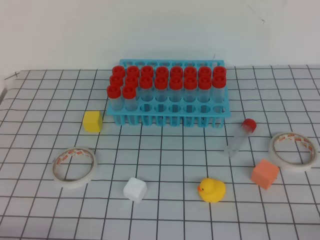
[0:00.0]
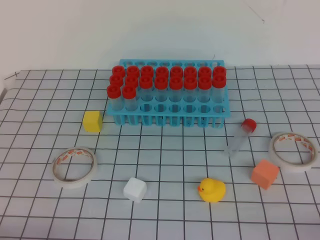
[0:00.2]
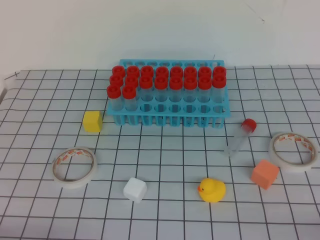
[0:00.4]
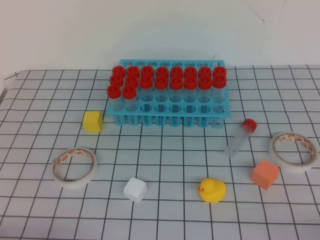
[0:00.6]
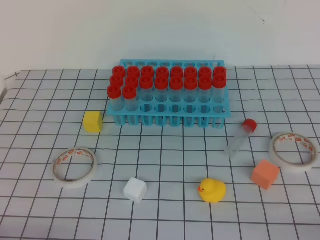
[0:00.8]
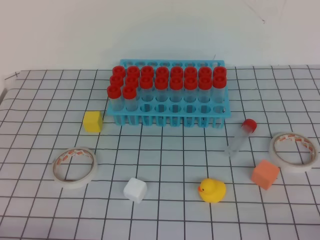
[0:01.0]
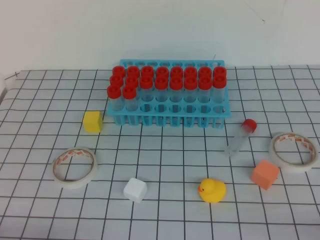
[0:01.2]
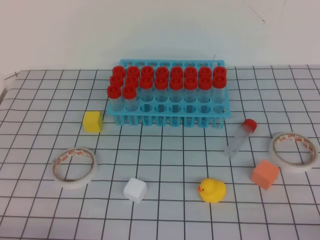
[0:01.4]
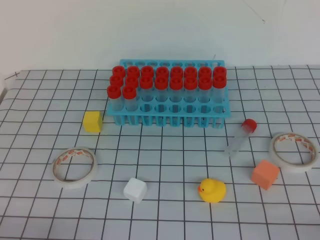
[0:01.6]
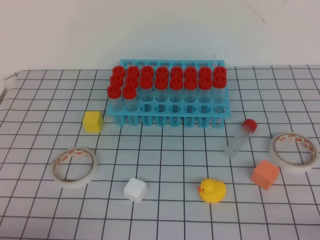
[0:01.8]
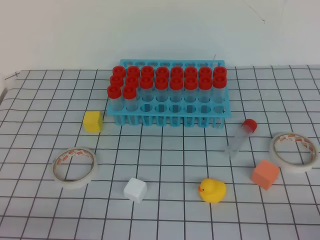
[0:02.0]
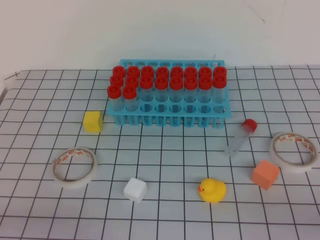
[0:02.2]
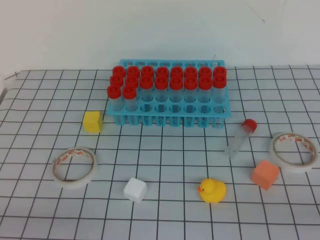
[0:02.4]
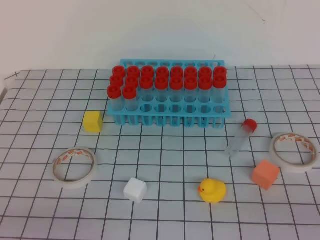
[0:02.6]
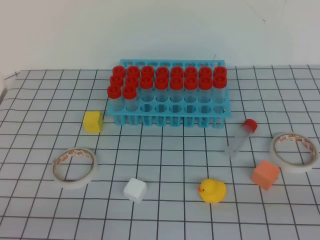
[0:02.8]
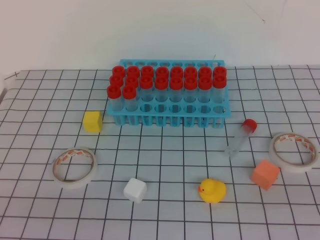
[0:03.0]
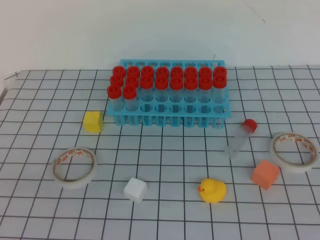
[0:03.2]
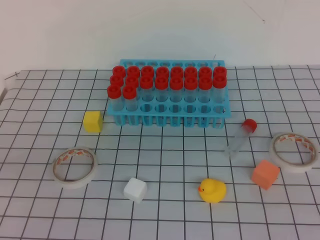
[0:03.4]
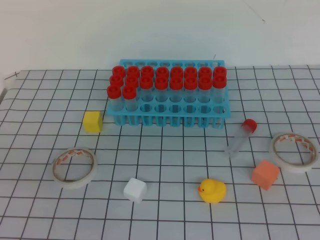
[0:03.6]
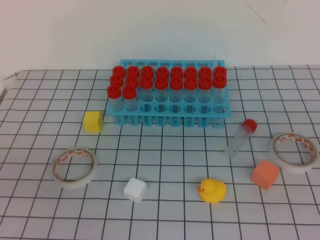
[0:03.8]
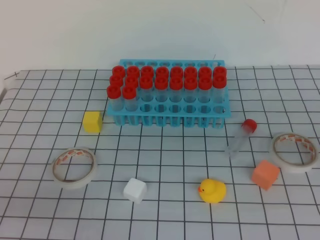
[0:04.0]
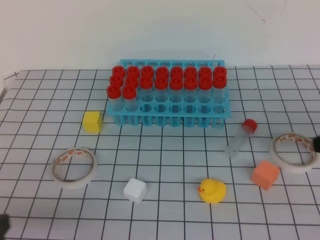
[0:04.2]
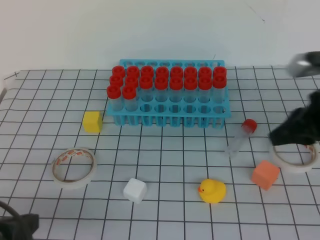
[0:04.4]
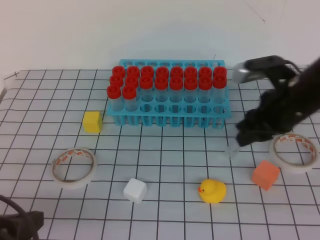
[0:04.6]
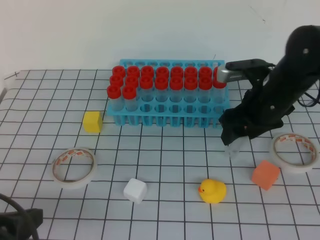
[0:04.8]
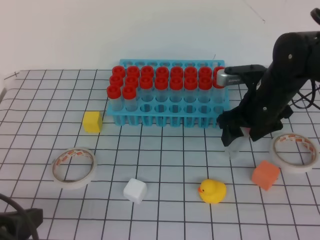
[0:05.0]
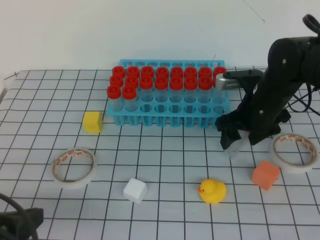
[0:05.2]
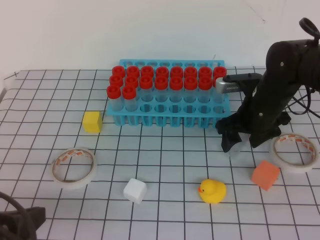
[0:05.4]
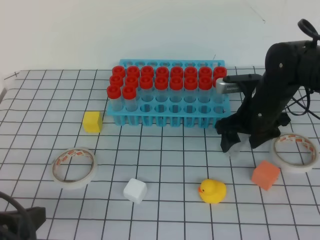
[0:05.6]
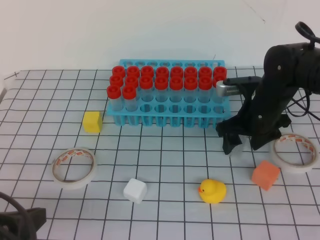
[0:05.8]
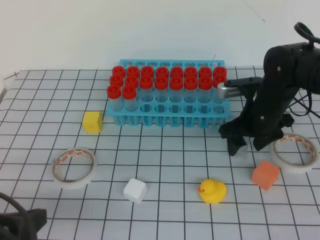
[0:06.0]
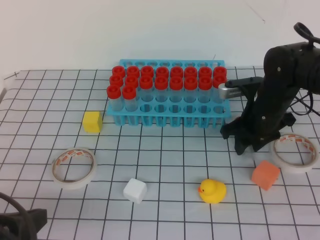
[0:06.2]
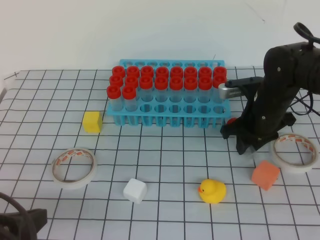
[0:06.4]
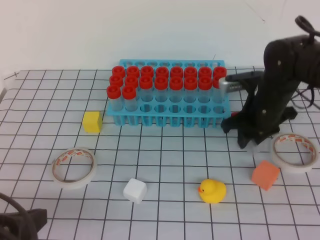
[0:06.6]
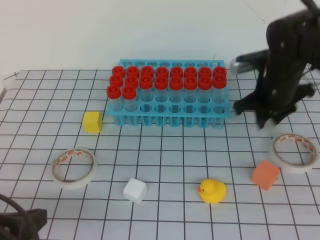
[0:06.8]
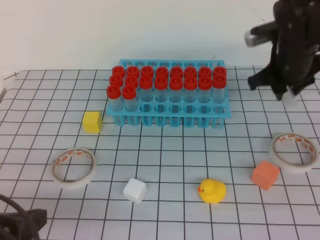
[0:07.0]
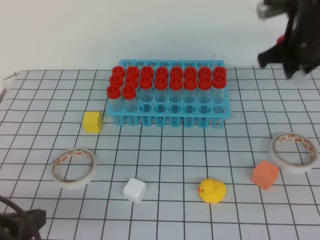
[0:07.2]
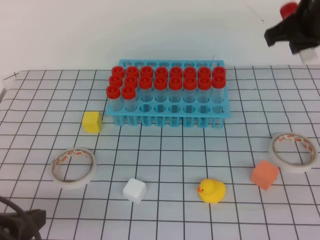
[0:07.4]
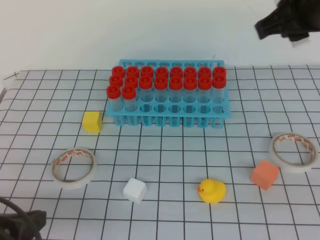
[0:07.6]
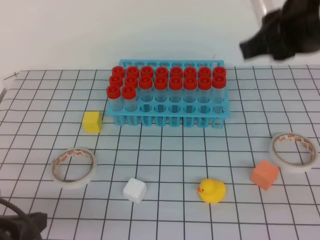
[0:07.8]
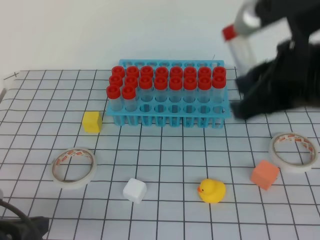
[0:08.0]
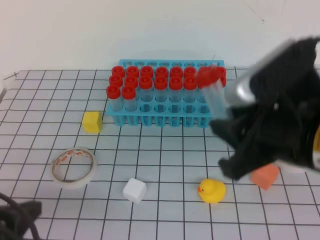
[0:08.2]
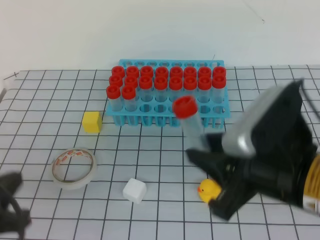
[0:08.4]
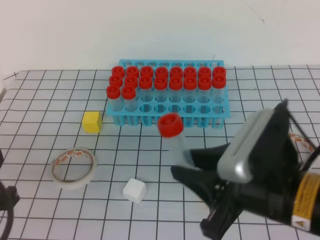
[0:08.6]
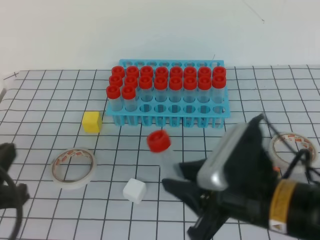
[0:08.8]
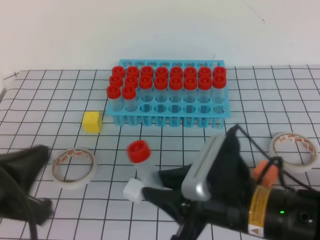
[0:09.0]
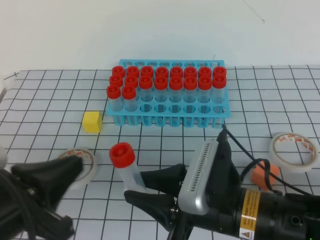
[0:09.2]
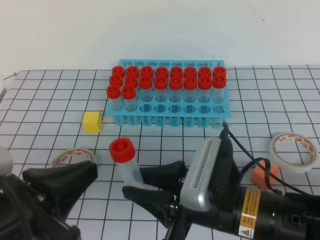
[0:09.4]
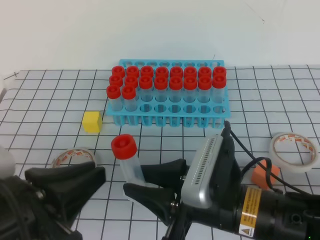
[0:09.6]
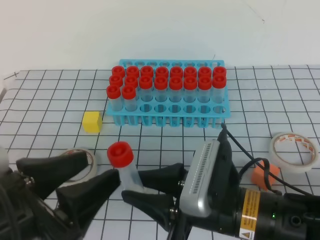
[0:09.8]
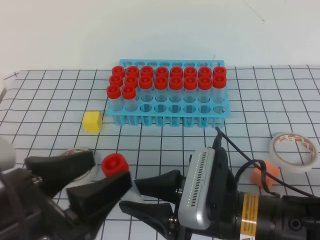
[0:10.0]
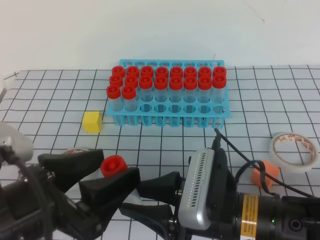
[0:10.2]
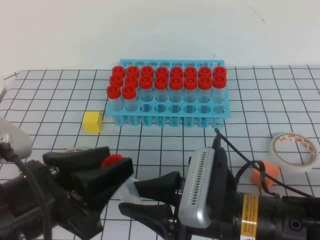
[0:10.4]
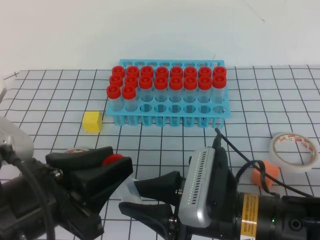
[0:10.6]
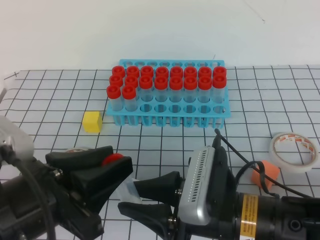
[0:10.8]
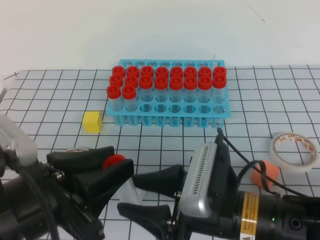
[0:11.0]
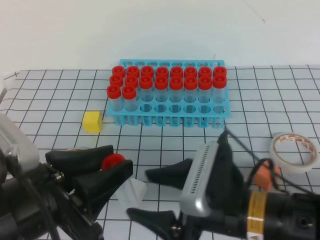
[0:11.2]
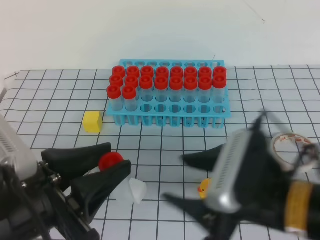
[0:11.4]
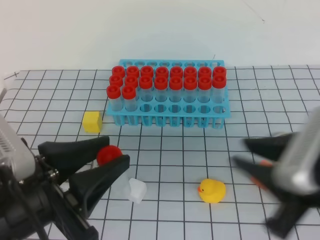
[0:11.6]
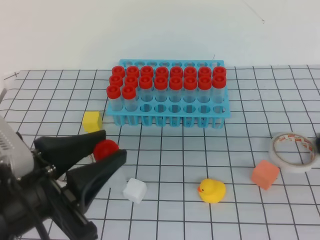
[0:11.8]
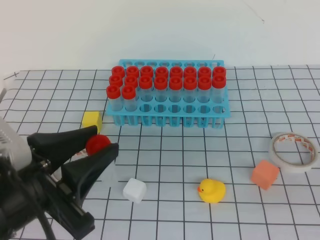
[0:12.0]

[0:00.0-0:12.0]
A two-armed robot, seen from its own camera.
0:03.0 to 0:04.4: The right gripper moves forward, some 25 cm, while the left gripper is displaced forward by some 10 cm, and reaches roughly 5 cm upward, then returns.
0:04.4 to 0:06.0: The right gripper travels forward, downward and to the left by approximately 15 cm, and opens its fingers.
0:06.0 to 0:07.6: The right gripper heads upward, covering about 20 cm, and closes its fingers.
0:07.6 to 0:09.0: The right gripper is displaced downward, backward and to the left by approximately 25 cm.
0:09.0 to 0:10.4: The left gripper goes approximately 5 cm to the right, and opens its fingers.
0:10.4 to 0:12.0: The right gripper shifts some 20 cm to the right and upward, and closes its fingers, while the left gripper closes its fingers.

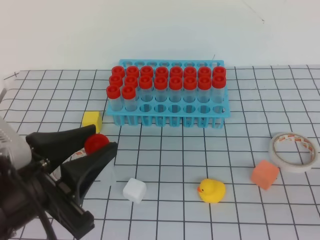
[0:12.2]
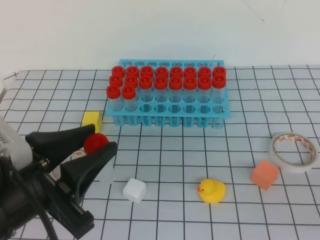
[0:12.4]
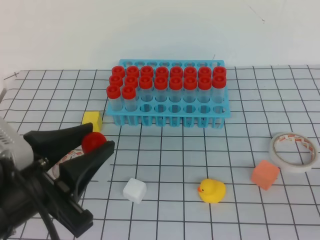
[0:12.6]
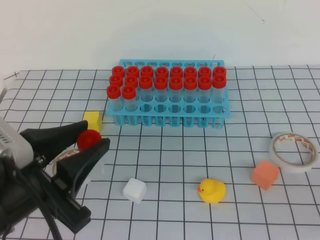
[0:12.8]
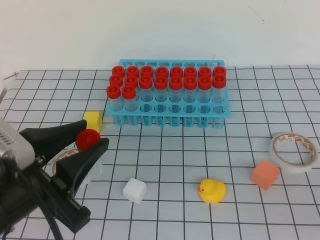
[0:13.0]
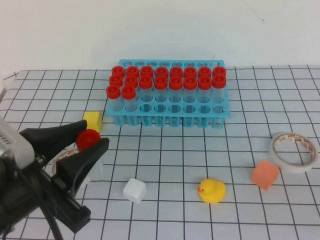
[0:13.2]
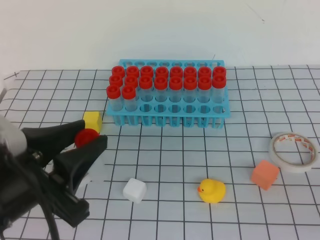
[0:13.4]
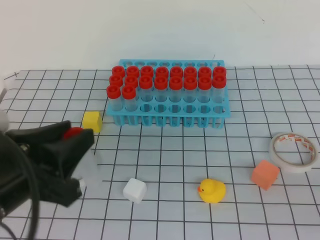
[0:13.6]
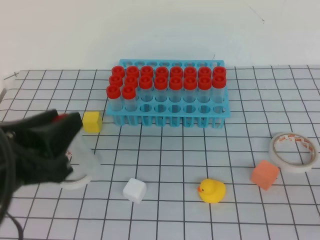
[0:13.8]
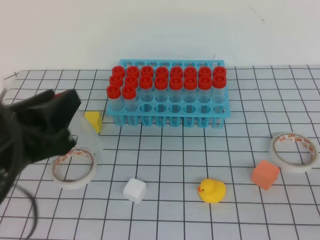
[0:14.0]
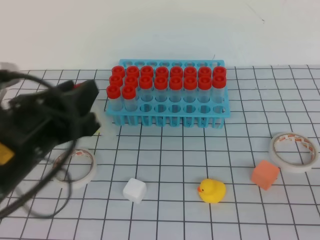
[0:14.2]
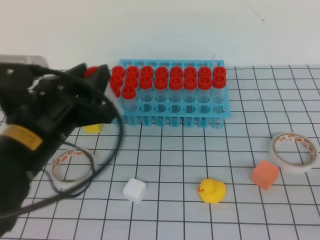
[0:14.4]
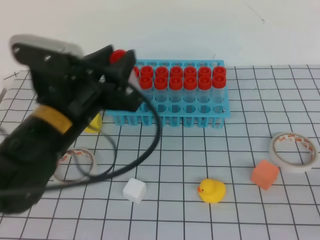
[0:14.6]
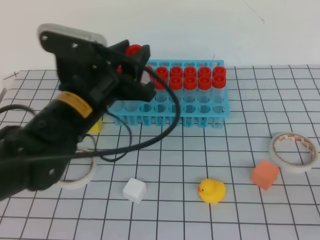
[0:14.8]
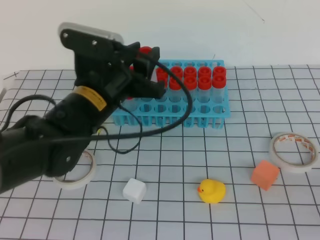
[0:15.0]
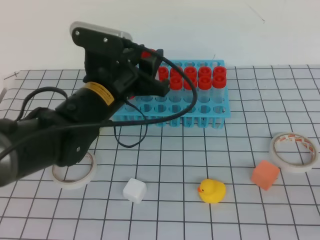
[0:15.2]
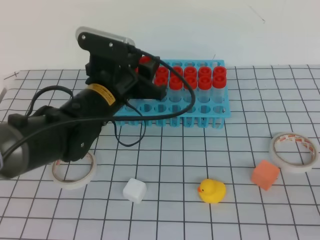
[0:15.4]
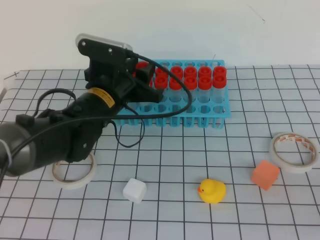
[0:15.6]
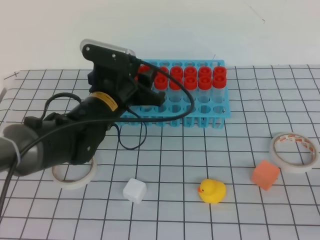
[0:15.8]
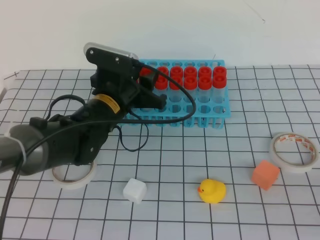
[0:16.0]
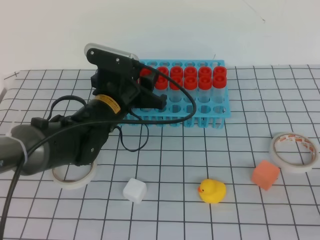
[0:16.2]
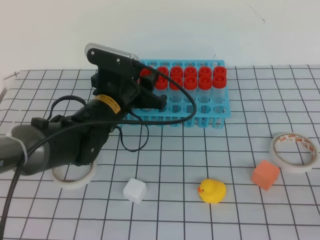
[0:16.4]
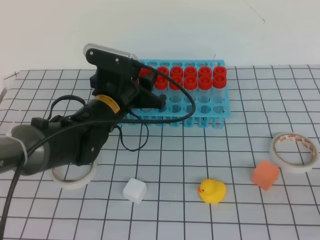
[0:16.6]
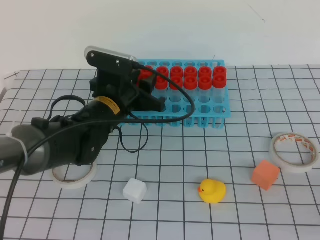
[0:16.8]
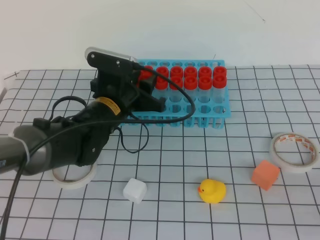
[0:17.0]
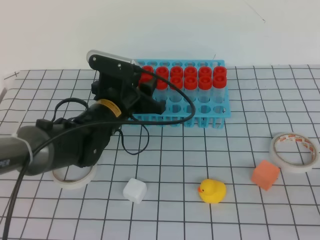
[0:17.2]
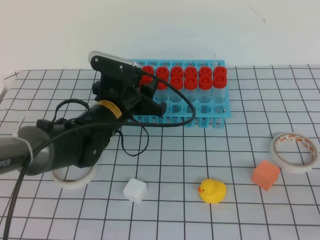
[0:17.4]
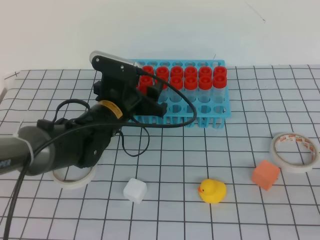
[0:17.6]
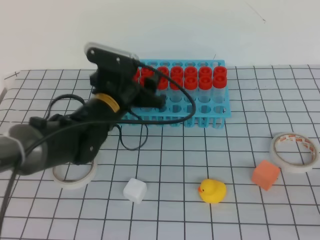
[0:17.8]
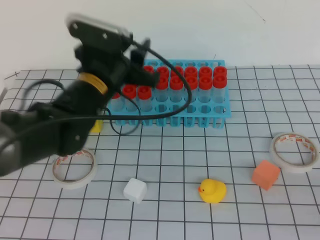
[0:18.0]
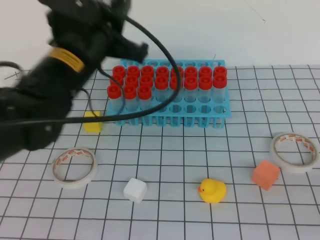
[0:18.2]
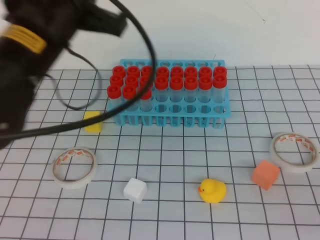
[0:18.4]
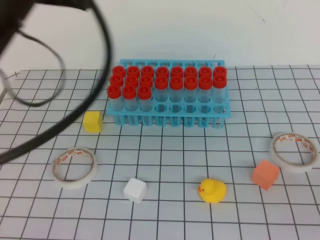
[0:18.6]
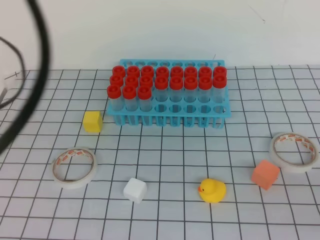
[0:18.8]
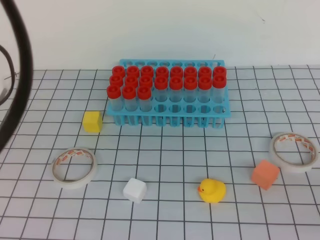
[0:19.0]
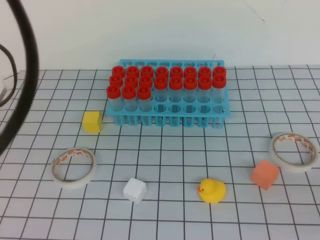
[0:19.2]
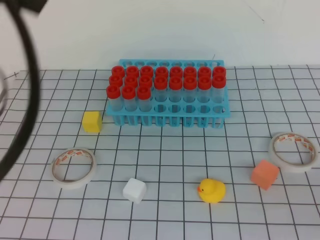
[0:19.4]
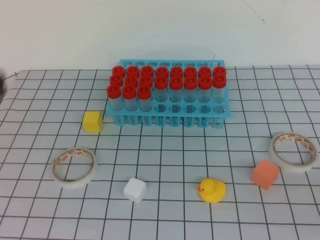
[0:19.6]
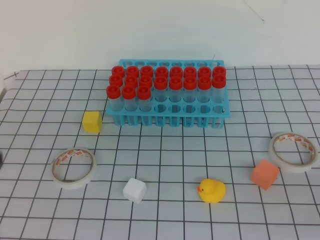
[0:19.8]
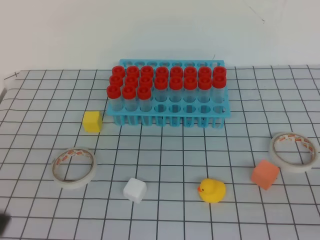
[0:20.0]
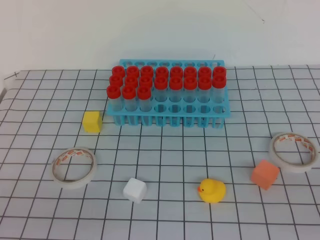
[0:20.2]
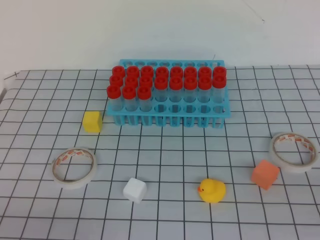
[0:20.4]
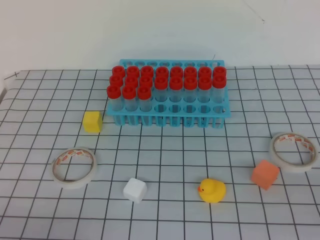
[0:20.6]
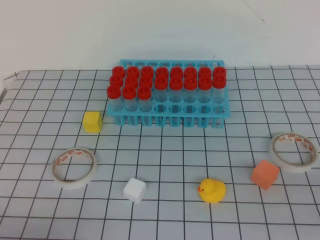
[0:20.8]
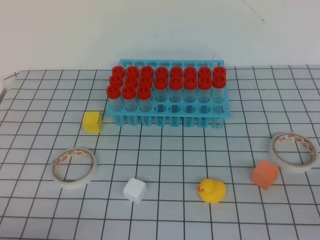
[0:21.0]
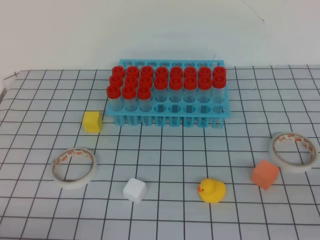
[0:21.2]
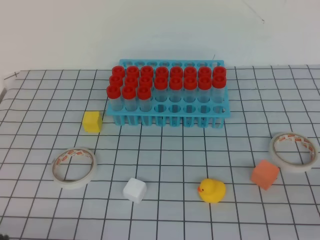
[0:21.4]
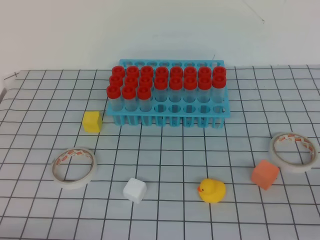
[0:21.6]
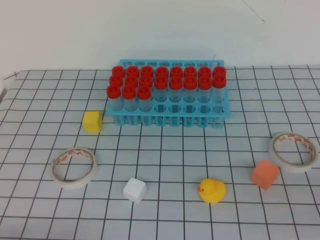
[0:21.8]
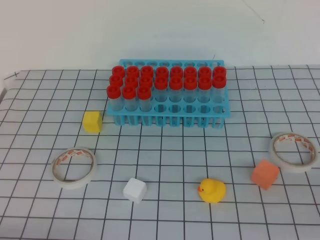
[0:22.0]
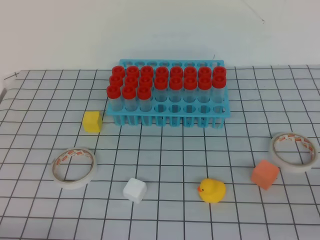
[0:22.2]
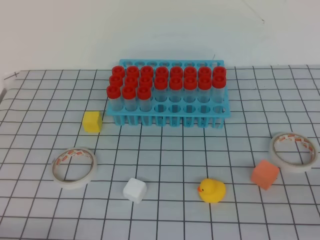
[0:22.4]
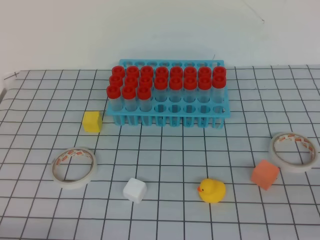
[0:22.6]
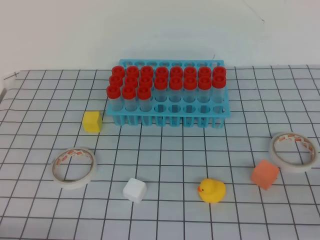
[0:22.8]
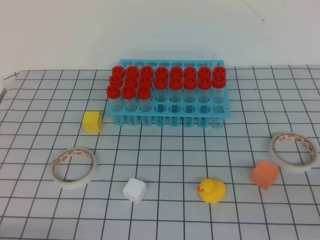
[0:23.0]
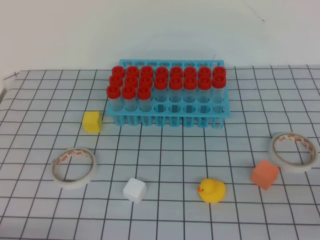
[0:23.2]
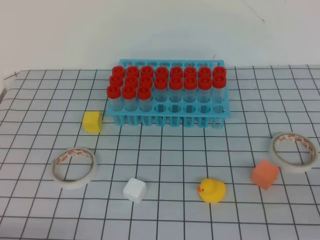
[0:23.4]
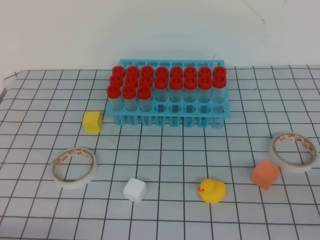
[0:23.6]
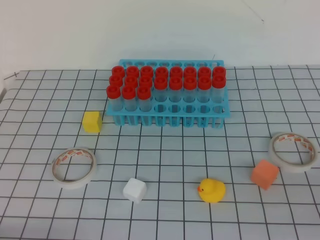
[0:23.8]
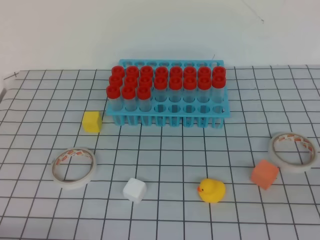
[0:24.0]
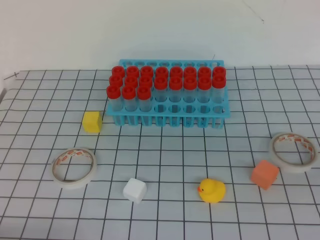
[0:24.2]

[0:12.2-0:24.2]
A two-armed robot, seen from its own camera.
0:13.8 to 0:15.2: The left gripper shifts about 20 cm forward and to the right.
0:15.2 to 0:16.6: The left gripper shifts some 5 cm downward.
0:16.6 to 0:18.2: The left gripper shifts about 10 cm upward, and closes its fingers.
0:18.2 to 0:19.8: The left gripper moves backward and to the left, about 20 cm.
0:19.8 to 0:21.2: The left gripper goes about 20 cm downward.
